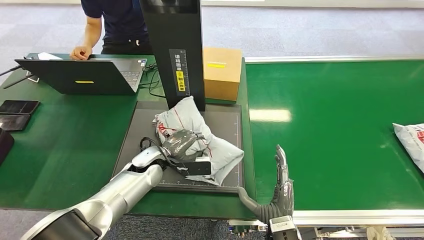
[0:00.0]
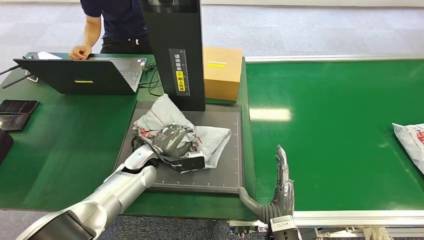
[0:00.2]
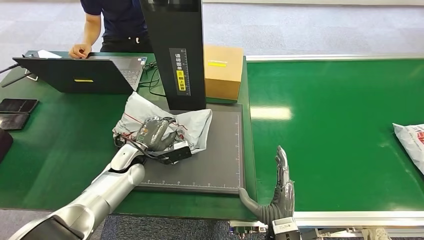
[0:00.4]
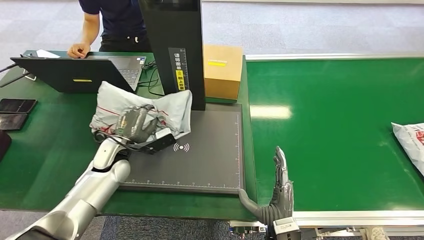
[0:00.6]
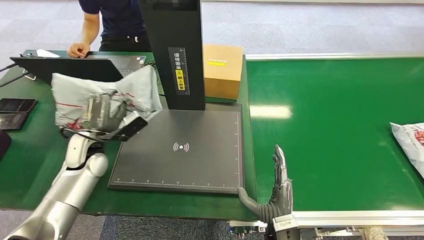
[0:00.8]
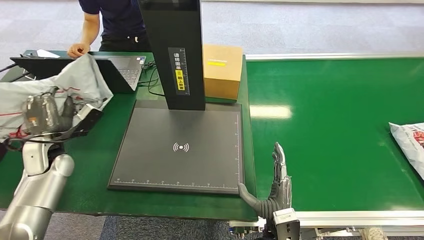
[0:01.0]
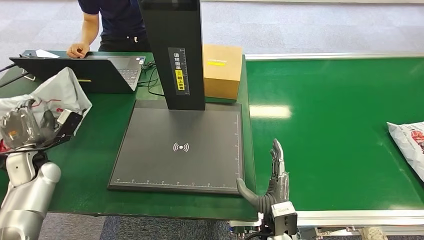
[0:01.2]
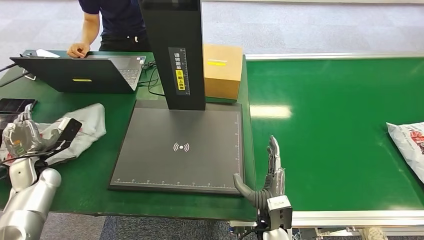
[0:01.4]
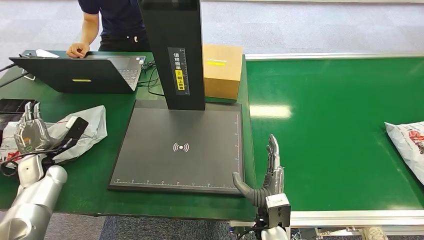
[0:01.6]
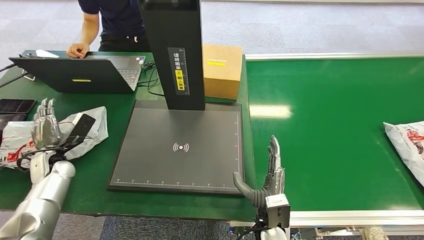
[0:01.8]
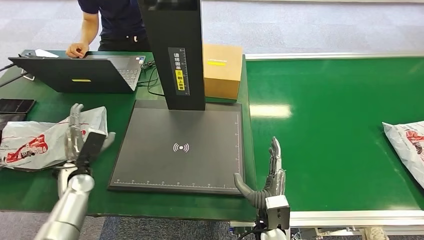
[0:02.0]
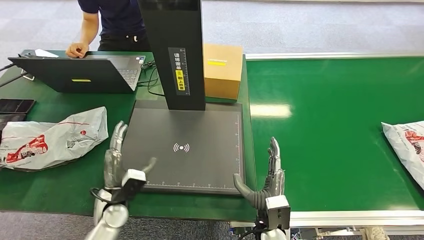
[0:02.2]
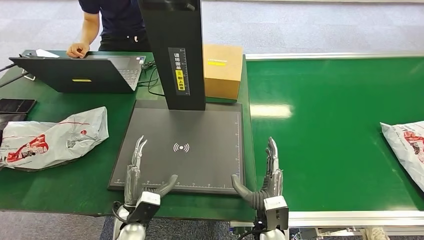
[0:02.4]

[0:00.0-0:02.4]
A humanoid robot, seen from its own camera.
Step, 0:00.0 to 0:00.8: Pick up the package from the inbound machine.
Step, 0:01.0 to 0:02.4: Place the package into the parcel locker.
0:01.2 to 0:02.4: The left hand travels to the right and backward by some 30 cm.
